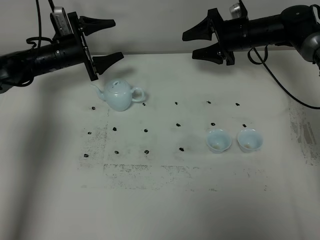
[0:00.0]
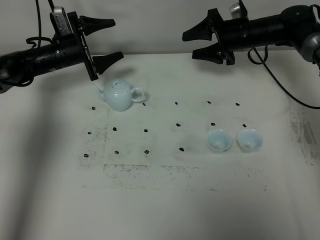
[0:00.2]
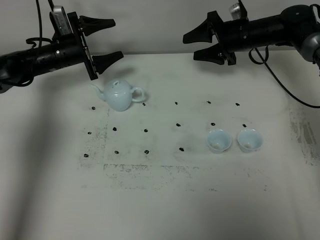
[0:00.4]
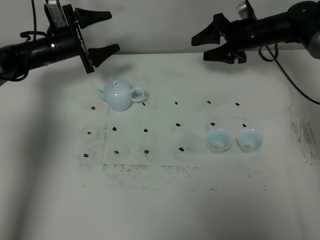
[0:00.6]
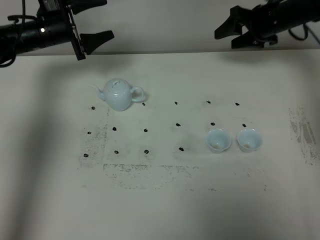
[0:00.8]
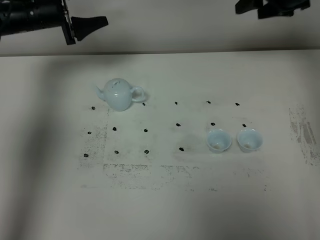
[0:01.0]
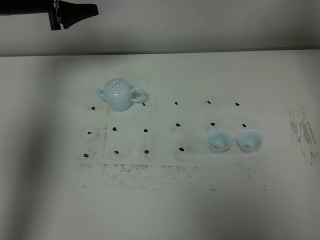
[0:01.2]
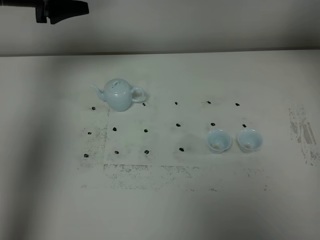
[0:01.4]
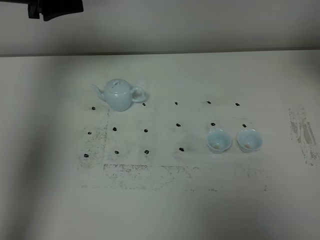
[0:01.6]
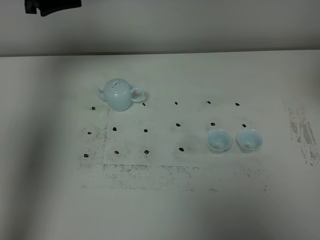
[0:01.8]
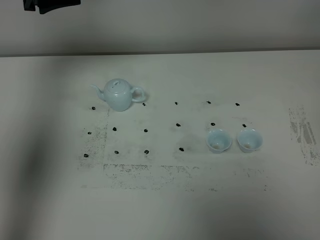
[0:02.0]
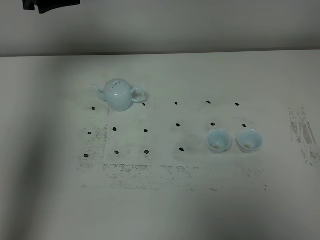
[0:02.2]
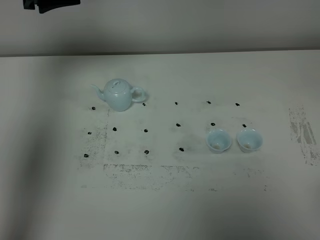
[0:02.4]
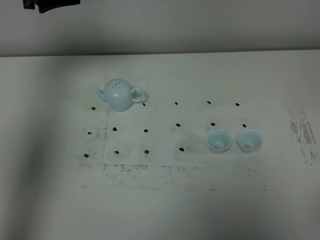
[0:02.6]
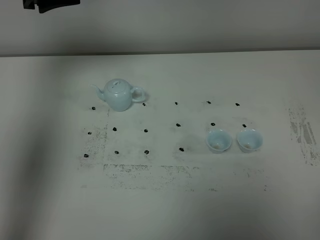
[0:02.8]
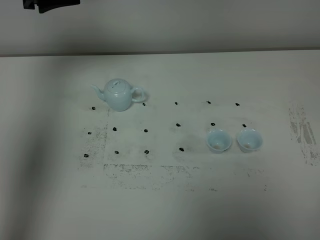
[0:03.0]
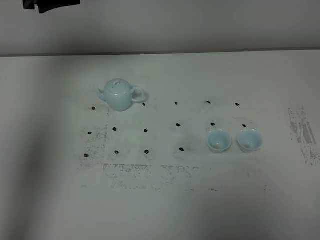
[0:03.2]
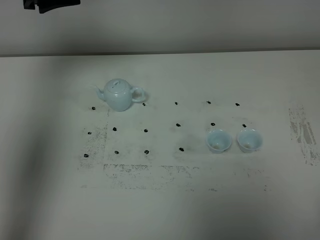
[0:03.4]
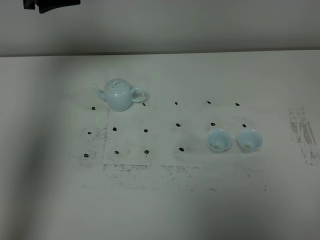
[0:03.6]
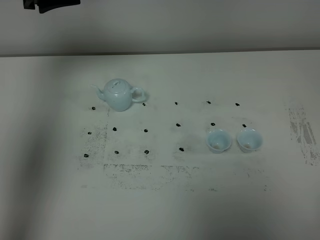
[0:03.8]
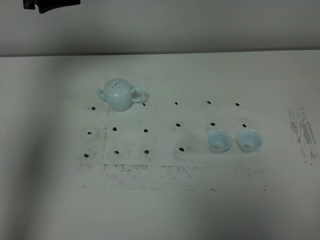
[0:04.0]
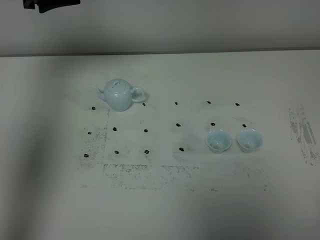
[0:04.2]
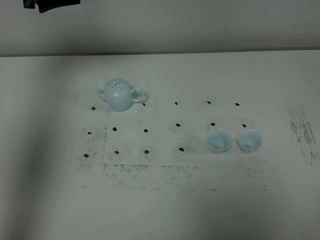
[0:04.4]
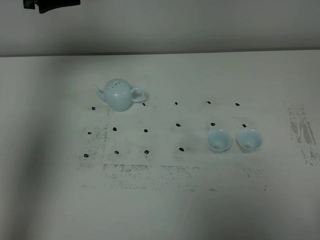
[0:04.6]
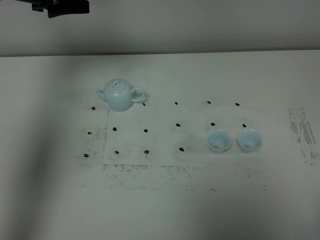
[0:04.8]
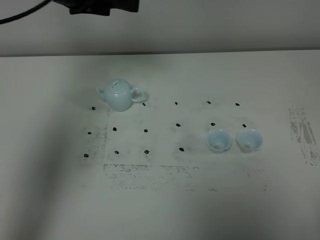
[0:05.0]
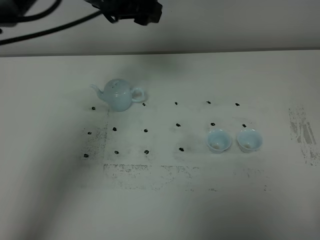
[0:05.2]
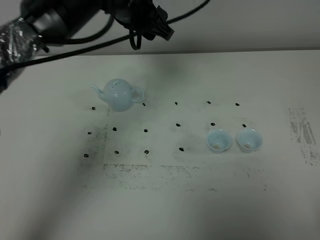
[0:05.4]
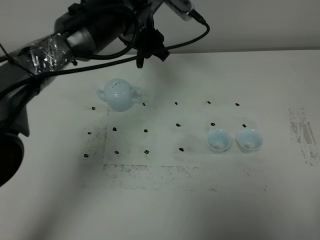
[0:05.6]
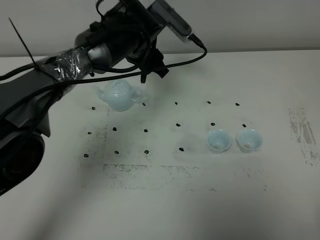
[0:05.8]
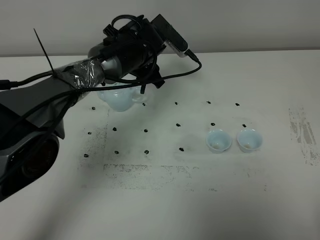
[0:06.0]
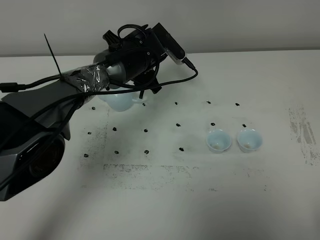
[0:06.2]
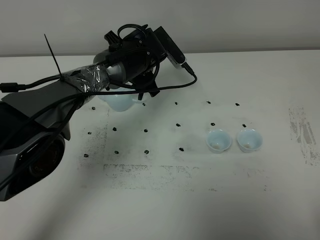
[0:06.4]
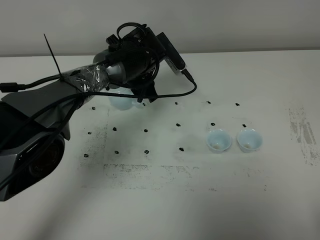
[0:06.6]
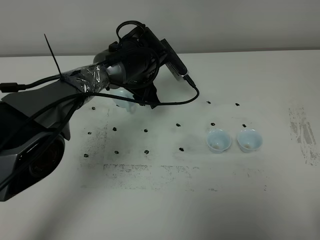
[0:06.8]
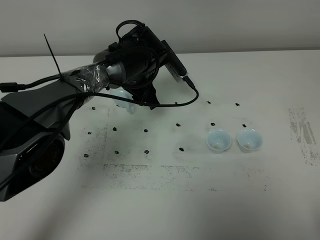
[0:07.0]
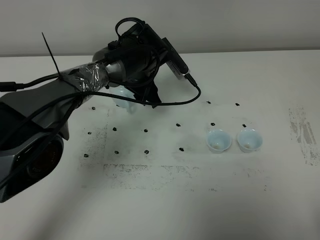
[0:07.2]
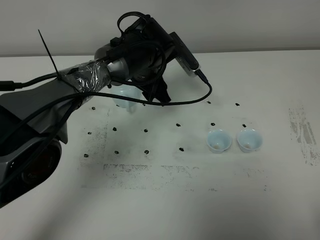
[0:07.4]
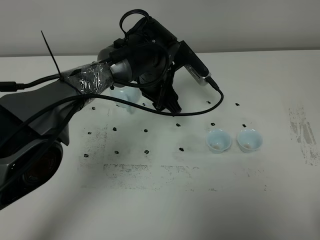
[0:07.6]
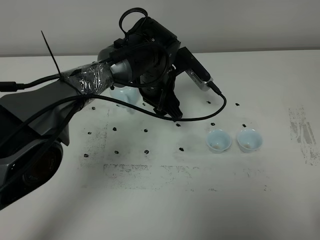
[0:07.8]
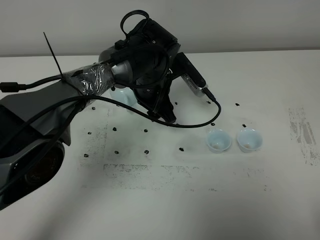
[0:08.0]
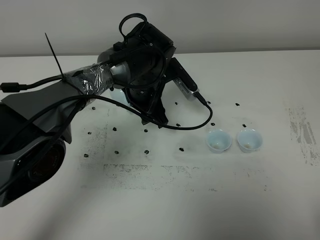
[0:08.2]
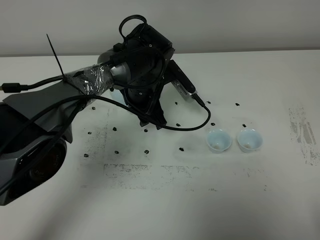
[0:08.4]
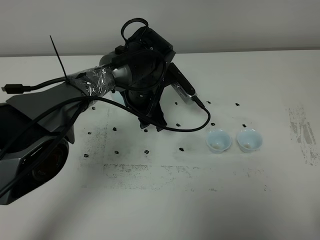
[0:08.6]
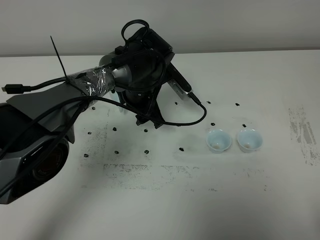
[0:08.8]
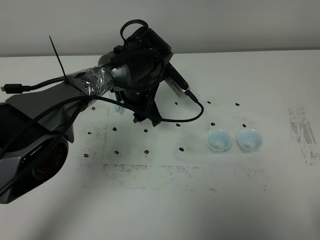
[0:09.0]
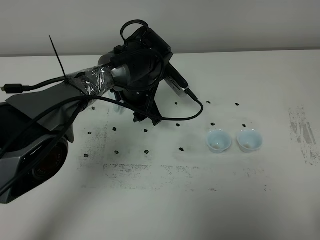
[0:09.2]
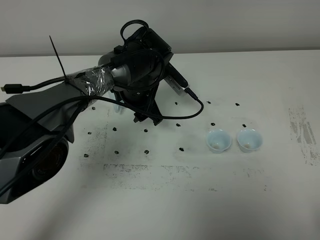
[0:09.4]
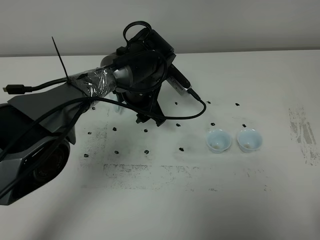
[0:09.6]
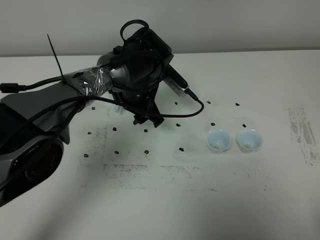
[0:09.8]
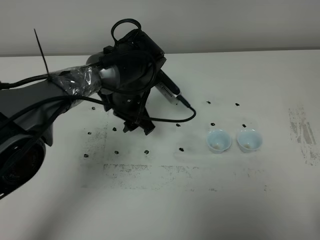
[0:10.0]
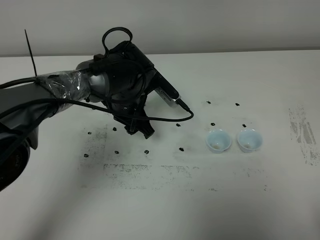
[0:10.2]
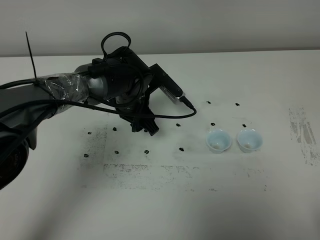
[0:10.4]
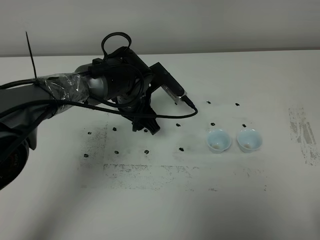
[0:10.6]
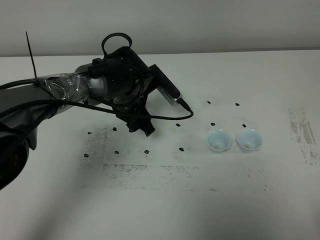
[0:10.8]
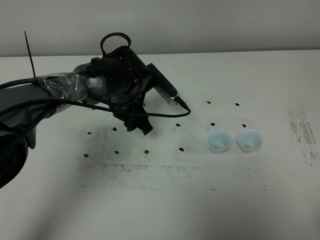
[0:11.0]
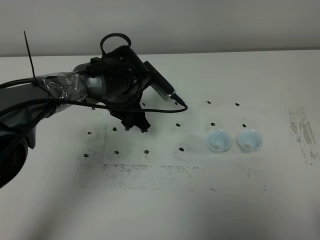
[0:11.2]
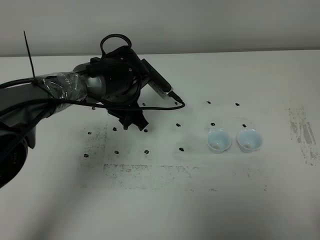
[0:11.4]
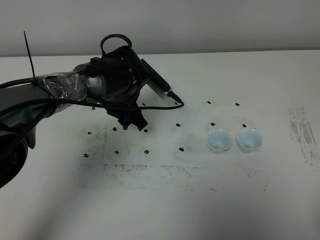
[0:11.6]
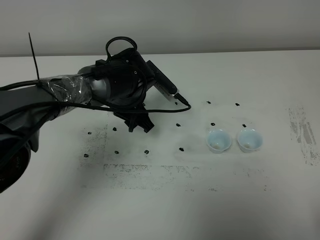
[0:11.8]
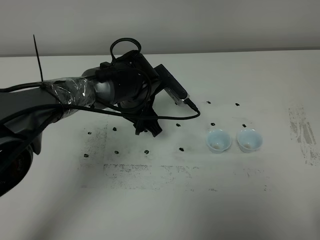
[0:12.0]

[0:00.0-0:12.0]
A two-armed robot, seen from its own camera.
Task of the whole recording: grasp the blue porcelain teapot and pour the tea into the two blue porcelain teacups one by one, put the blue porcelain teapot back in its original place.
0:00.0 to 0:01.6: The right gripper moves upward and backward, roughly 40 cm, while the left gripper is displaced upward by roughly 20 cm.
0:04.4 to 0:06.0: The left gripper heads to the right and downward, covering about 25 cm.
0:06.0 to 0:07.6: The left gripper changes place by some 5 cm.
0:07.6 to 0:09.0: The grippers make only small movements.
0:09.0 to 0:12.0: The grippers make only small movements.

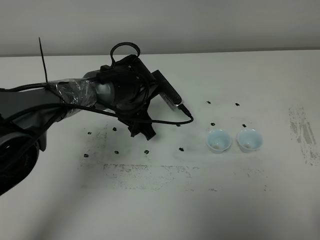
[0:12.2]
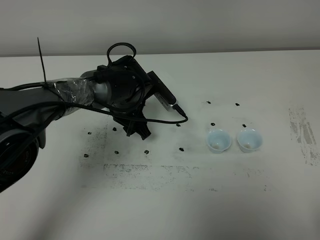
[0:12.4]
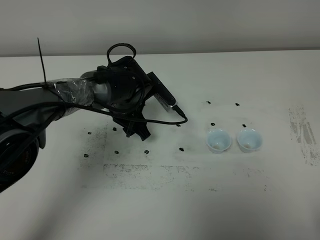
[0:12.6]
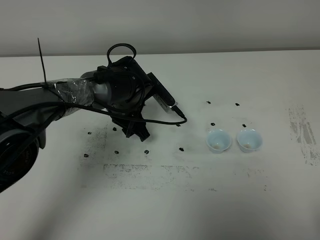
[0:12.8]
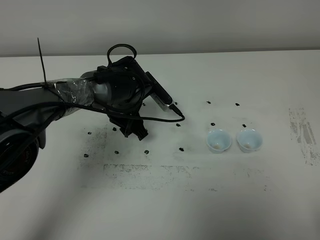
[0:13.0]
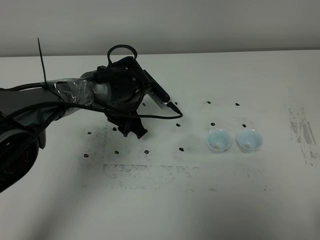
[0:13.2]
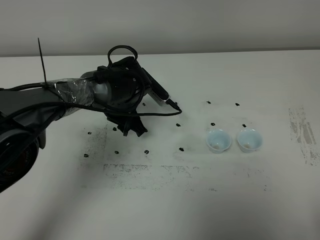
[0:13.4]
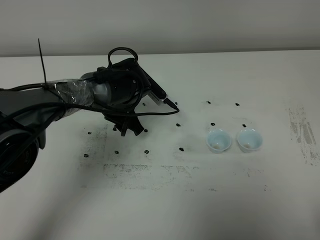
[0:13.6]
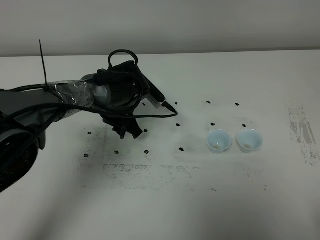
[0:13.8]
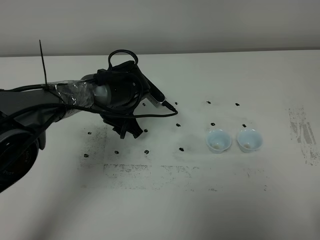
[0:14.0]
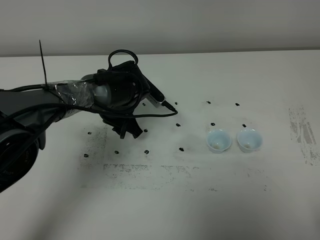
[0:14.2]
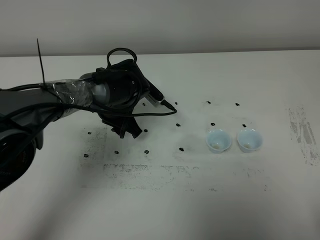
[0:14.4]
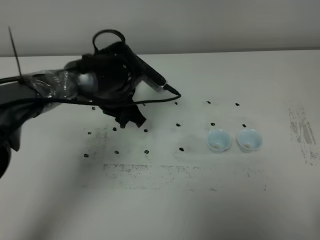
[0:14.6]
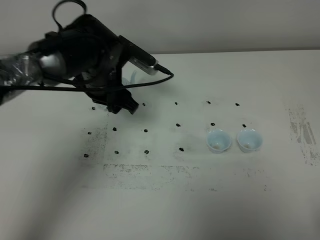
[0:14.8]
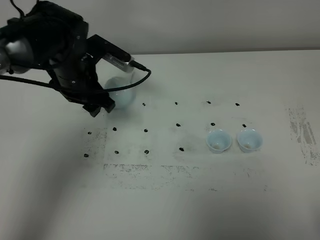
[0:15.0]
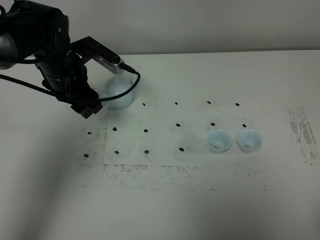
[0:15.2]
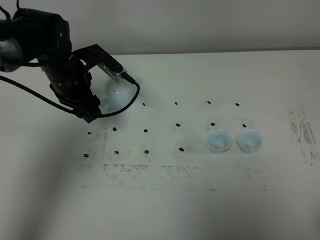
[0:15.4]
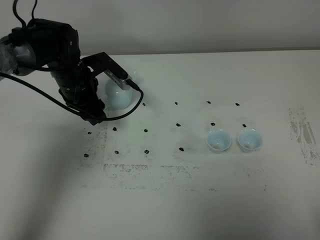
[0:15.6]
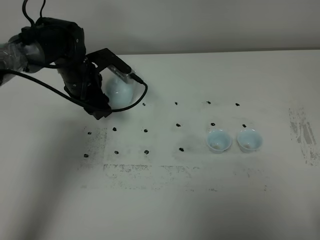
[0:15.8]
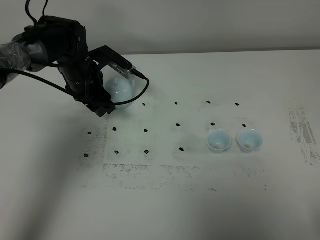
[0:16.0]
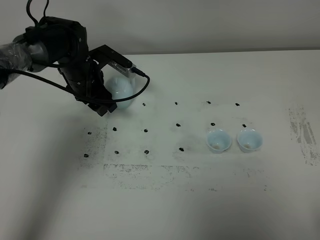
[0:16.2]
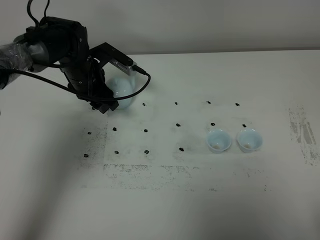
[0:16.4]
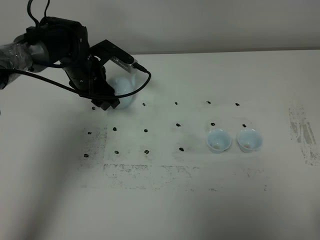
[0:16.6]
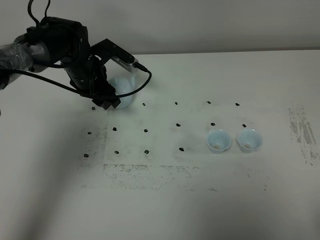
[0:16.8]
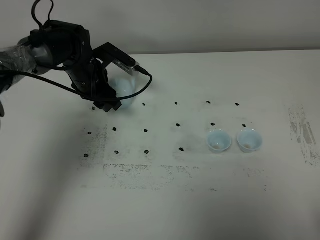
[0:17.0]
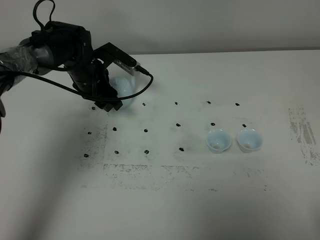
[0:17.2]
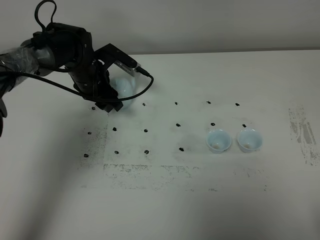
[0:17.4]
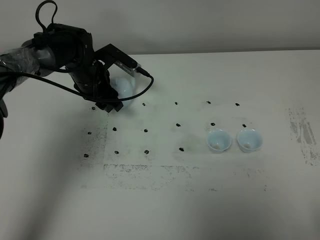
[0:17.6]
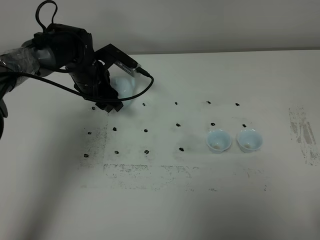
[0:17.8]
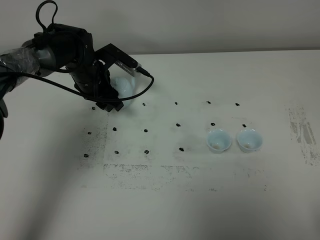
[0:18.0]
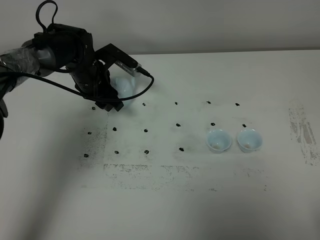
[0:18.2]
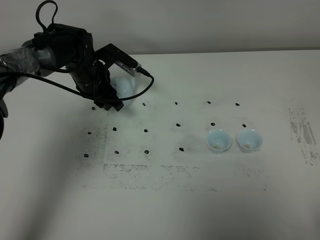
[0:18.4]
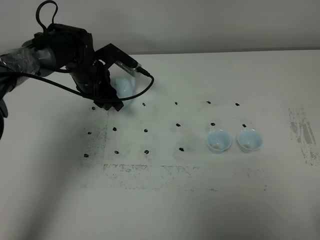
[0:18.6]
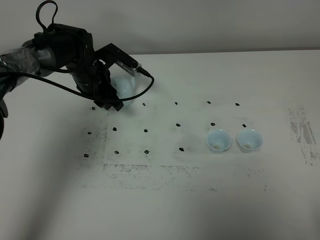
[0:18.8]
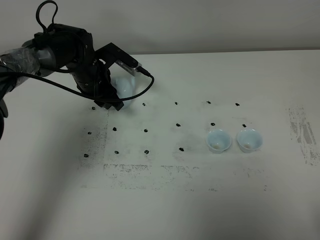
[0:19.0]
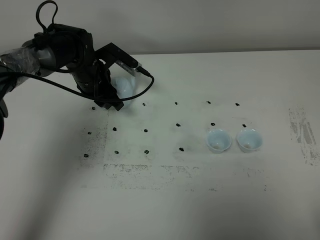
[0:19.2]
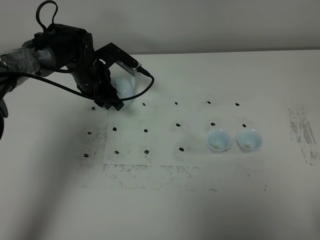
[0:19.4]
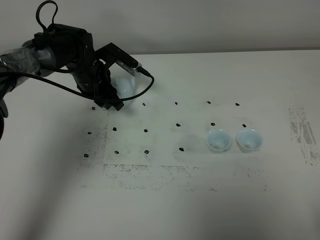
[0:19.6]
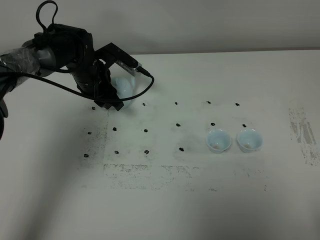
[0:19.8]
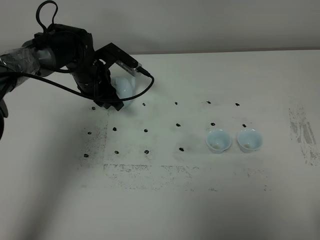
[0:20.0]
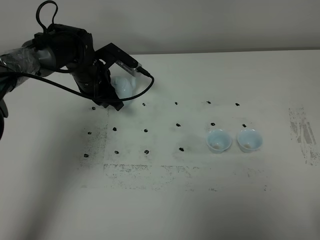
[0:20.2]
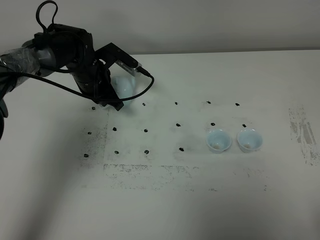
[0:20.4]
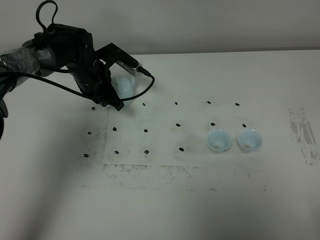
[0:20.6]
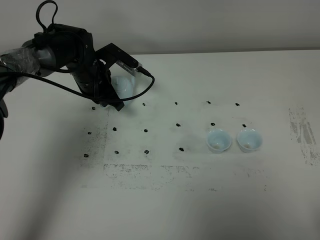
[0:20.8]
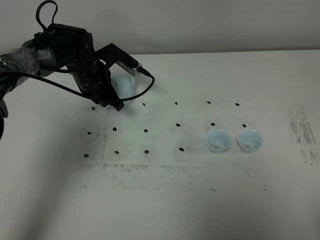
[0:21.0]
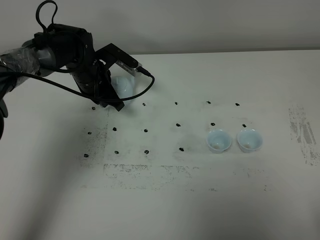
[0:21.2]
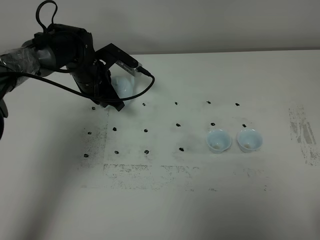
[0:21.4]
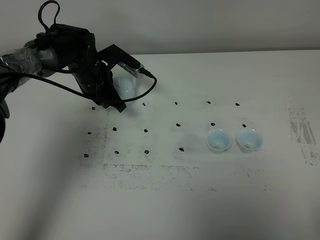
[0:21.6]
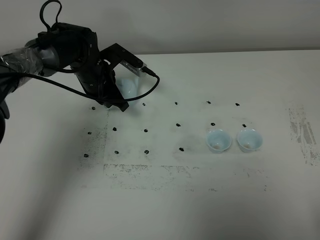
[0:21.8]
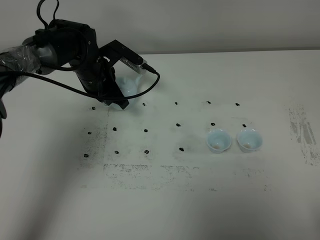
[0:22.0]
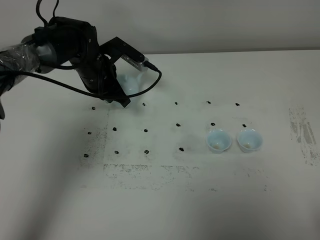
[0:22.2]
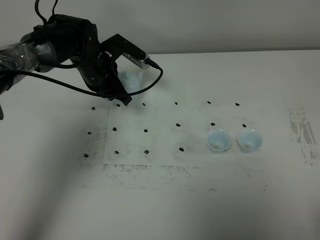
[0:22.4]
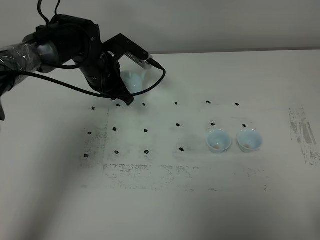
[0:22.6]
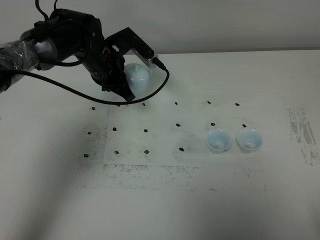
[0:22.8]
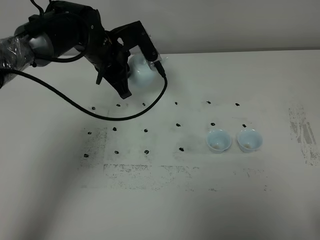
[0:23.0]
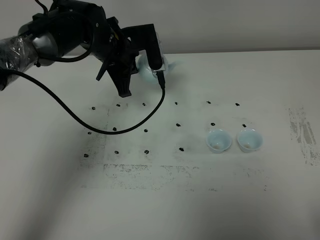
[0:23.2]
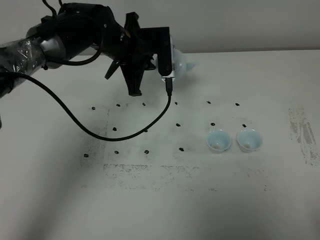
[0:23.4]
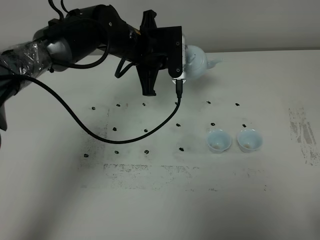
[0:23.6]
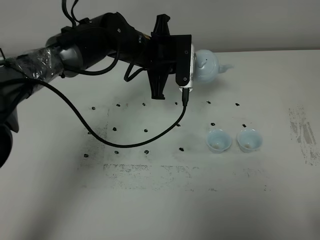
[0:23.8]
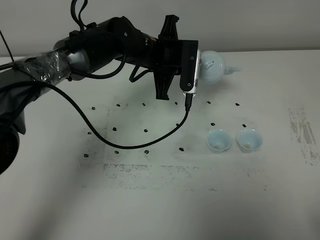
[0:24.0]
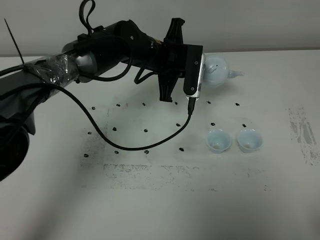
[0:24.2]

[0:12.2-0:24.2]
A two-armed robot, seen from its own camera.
Task of the whole recording: grasp the blue porcelain teapot and pour the tea into the two blue porcelain teacups one by one, put the blue porcelain teapot back in its original place.
Step, 0:12.2 to 0:22.2: Pick up the teapot with the left gripper.
0:12.2 to 0:13.8: The grippers stay close to where they were, moving slightly.
0:13.8 to 0:15.2: The left gripper shifts some 15 cm upward and to the left.
0:15.2 to 0:16.6: The left gripper moves downward and forward, about 10 cm.
0:16.6 to 0:18.2: The grippers stay close to where they were, moving slightly.
0:18.2 to 0:19.8: The two grippers keep their place.
0:21.2 to 0:22.6: The grippers move only a little.
0:22.6 to 0:24.2: The left gripper moves to the right, some 10 cm.
